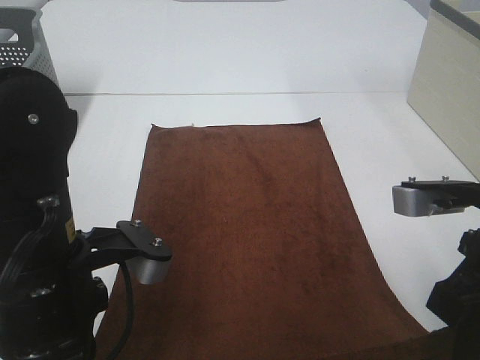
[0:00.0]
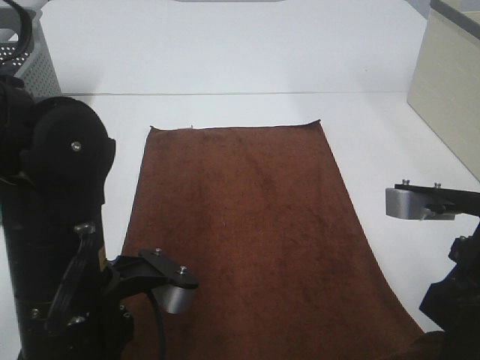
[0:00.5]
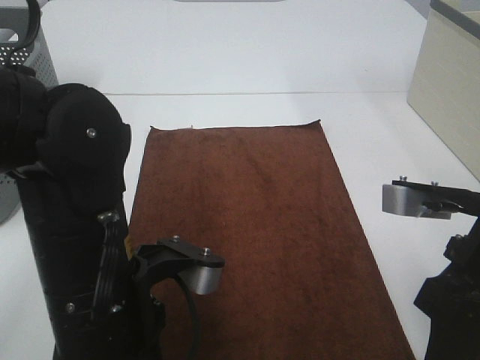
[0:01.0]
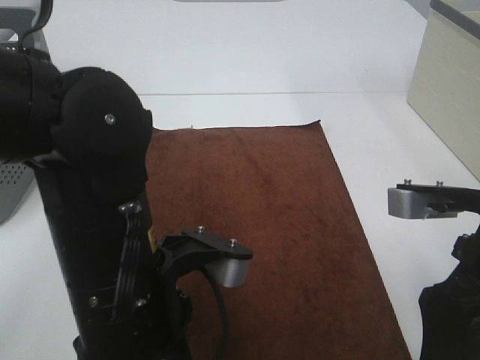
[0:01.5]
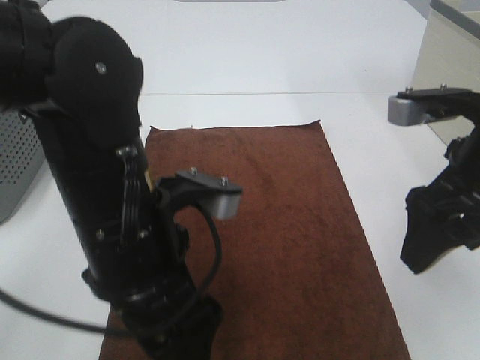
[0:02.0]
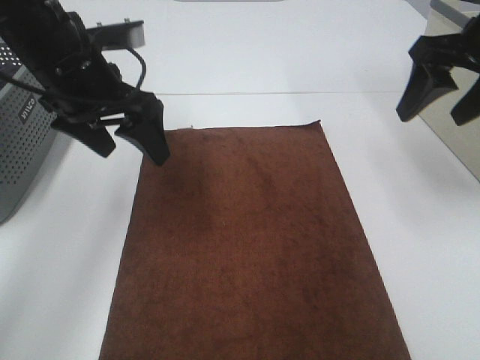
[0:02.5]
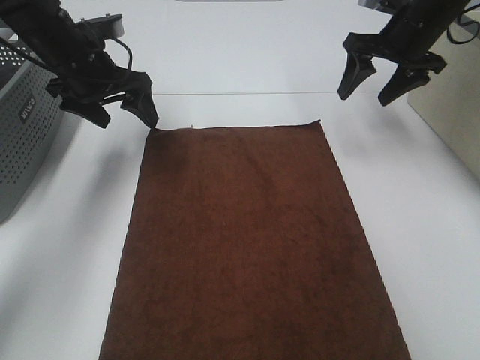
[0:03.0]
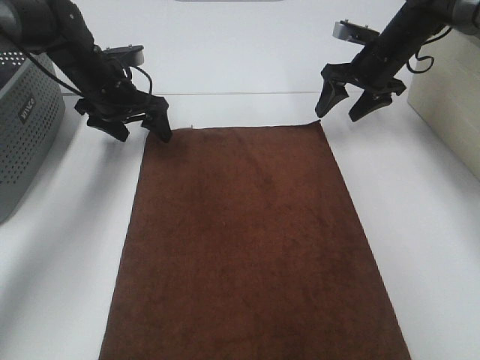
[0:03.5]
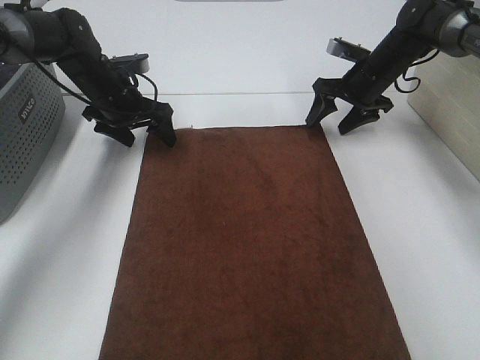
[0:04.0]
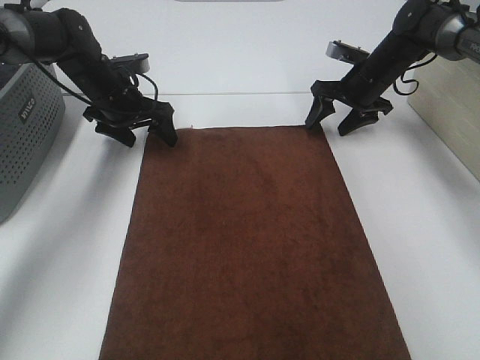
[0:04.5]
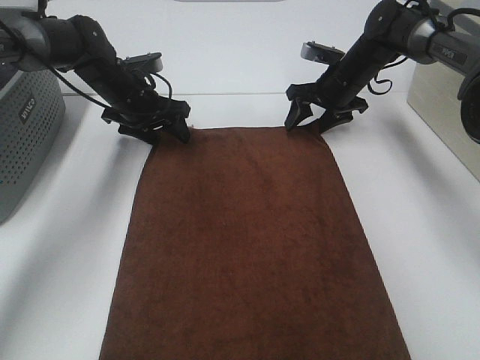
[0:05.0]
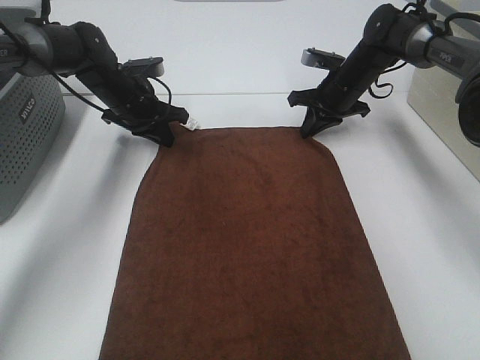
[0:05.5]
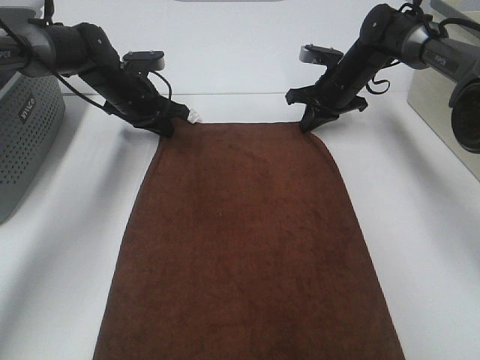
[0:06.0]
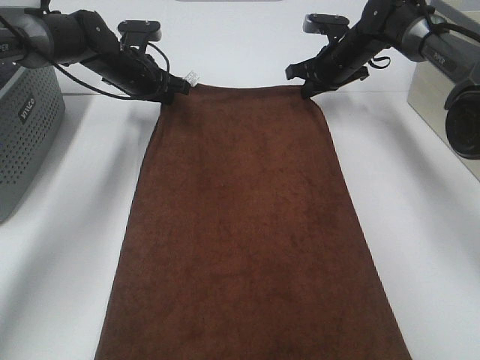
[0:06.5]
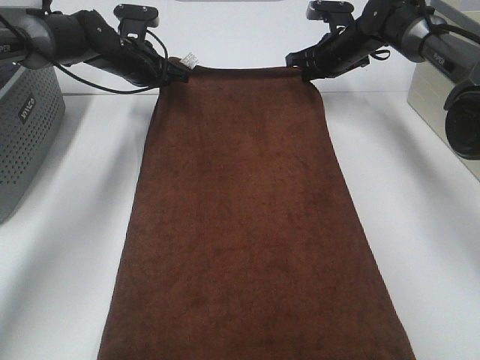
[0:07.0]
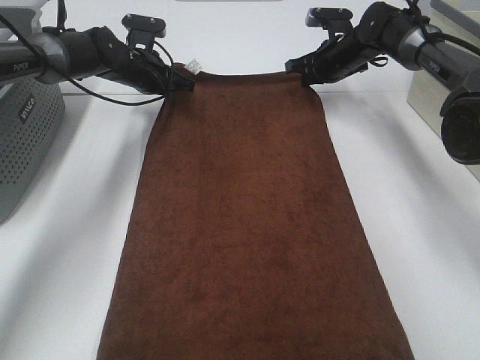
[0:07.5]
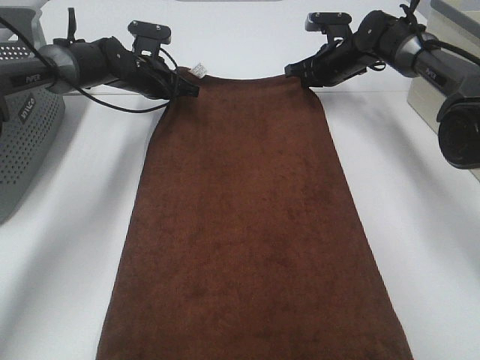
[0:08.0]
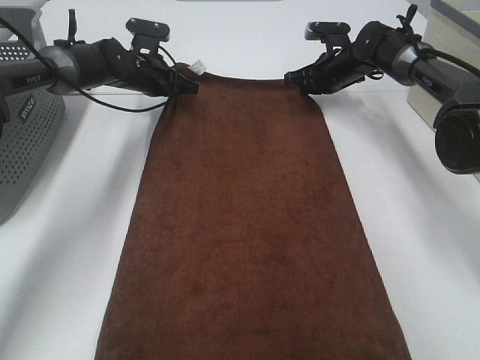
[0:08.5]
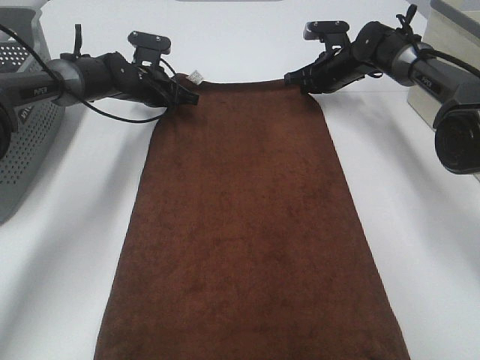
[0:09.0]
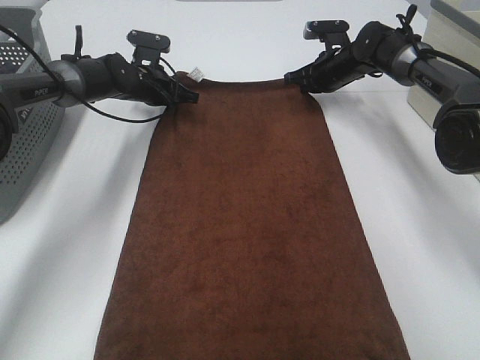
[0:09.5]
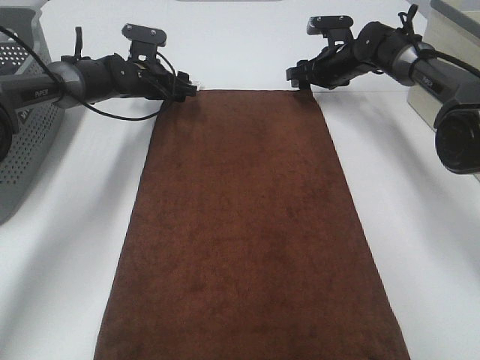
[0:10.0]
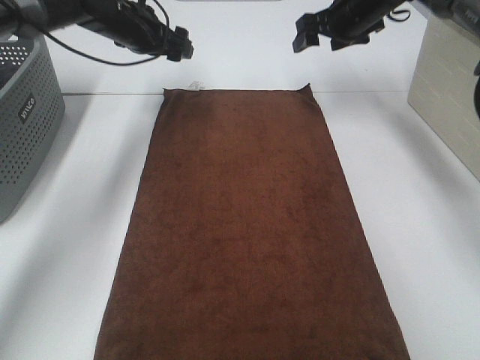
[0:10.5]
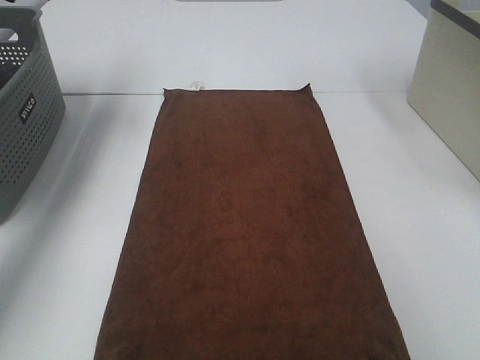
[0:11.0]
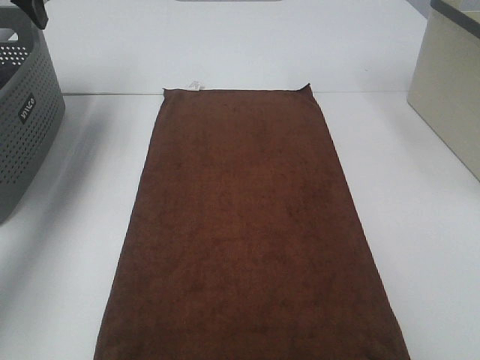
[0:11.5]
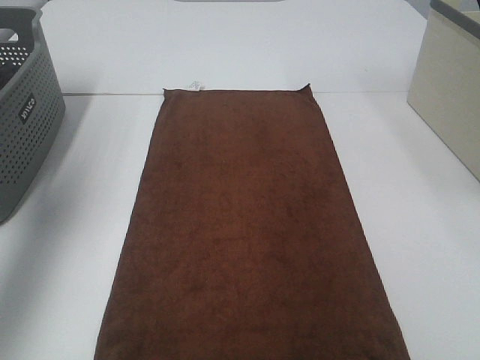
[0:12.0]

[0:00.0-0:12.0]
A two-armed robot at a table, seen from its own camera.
Task of the whole recording: Remove the towel and place it.
Step, 0:00.0 to 0:04.5: Left hand:adjust the brown towel.
Step, 0:00.0 to 0:04.5: Right hand:adjust the brown towel.
0:00.0 to 0:02.0: The left gripper goes about 5 cm to the right, and opens. Meanwhile the right gripper heads forward, covering approximately 5 cm, and opens up.
0:02.0 to 0:04.0: The right gripper is displaced forward and downward by about 35 cm, while the left gripper is displaced forward by some 30 cm.
0:04.0 to 0:06.0: The left gripper closes, while the right gripper closes.
0:08.0 to 0:10.0: The right gripper opens up; the left gripper opens up.
0:10.0 to 0:12.0: The right gripper moves backward and upward, approximately 50 cm, while the left gripper goes about 50 cm backward, upward and to the left.

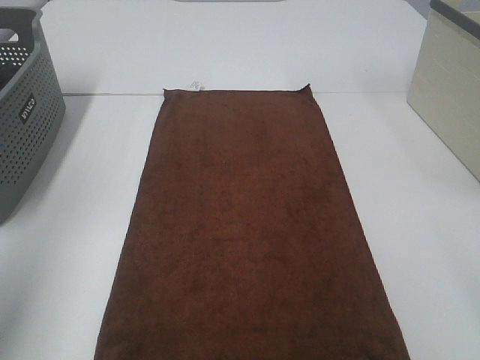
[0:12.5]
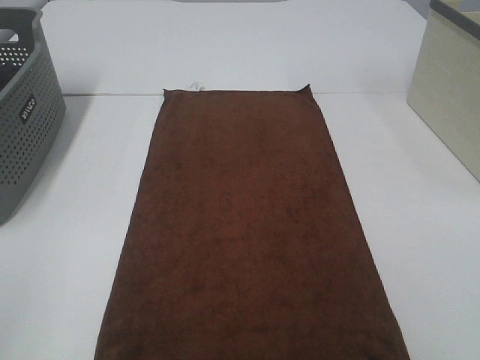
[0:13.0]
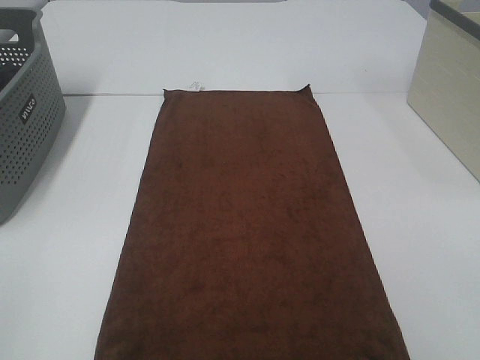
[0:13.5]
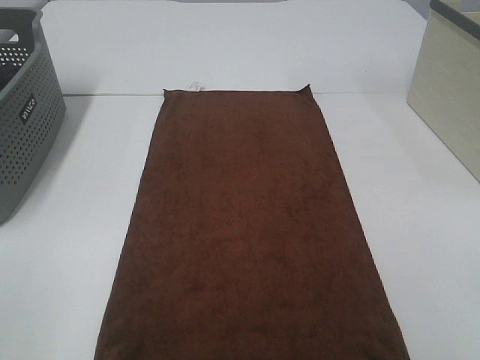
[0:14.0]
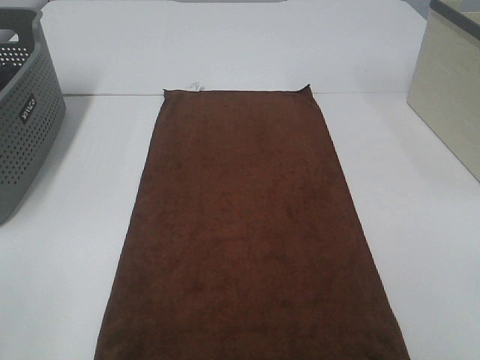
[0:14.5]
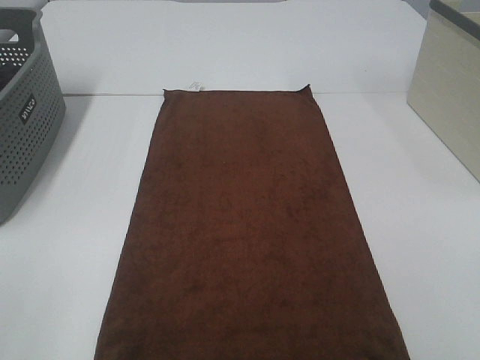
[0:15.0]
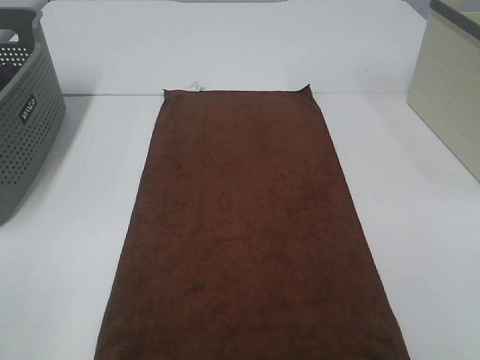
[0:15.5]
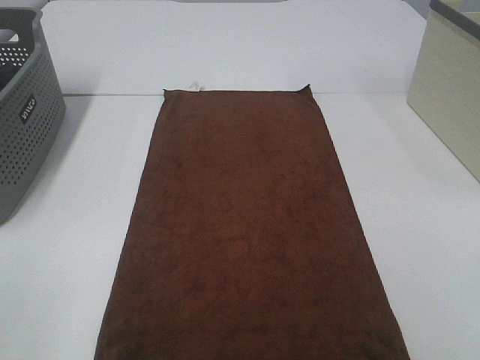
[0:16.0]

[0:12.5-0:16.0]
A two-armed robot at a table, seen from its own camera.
Task of the whole recording: Remove the towel and place it.
0:12.5 to 0:14.5: The left gripper goes some 15 cm backward and downward.
0:14.5 to 0:16.0: Both grippers stay about where they are.

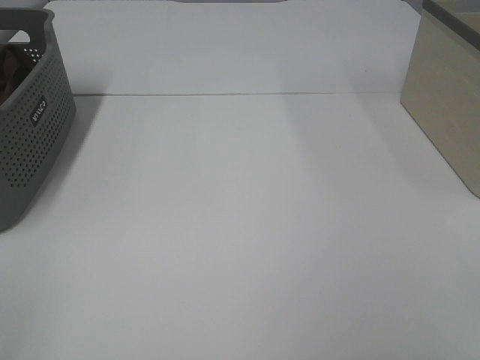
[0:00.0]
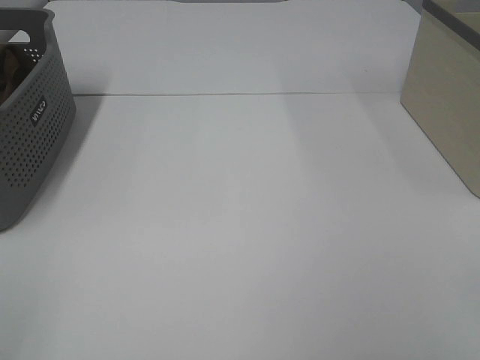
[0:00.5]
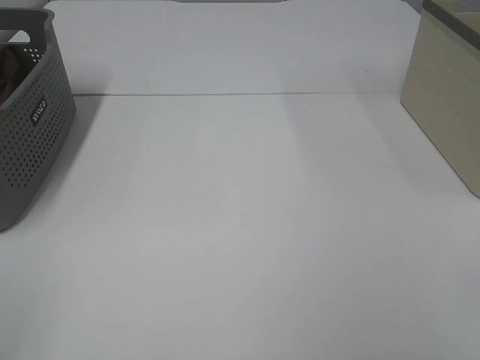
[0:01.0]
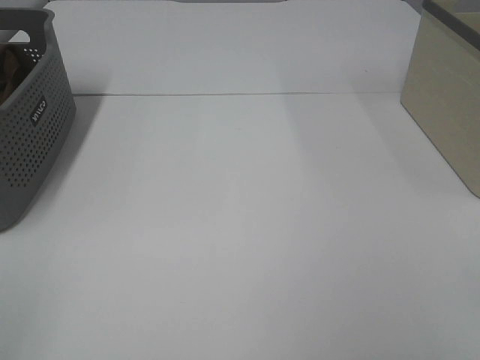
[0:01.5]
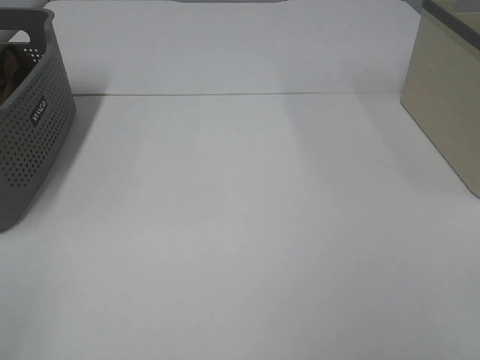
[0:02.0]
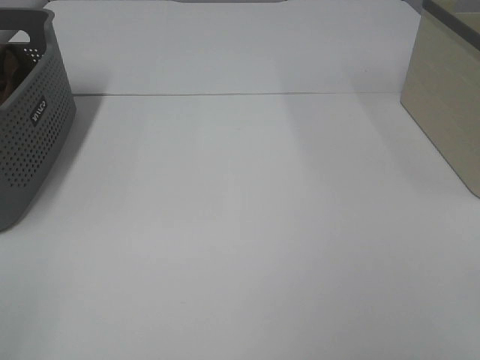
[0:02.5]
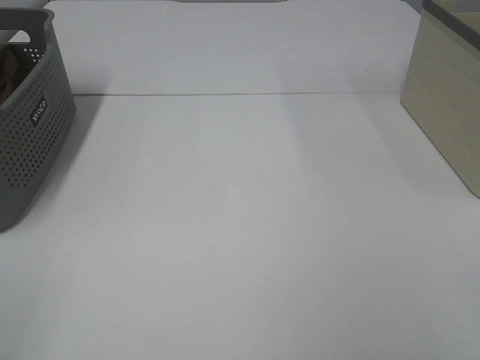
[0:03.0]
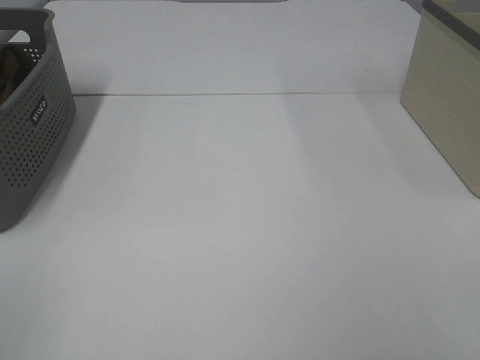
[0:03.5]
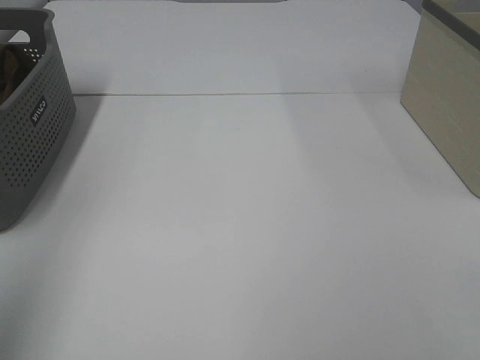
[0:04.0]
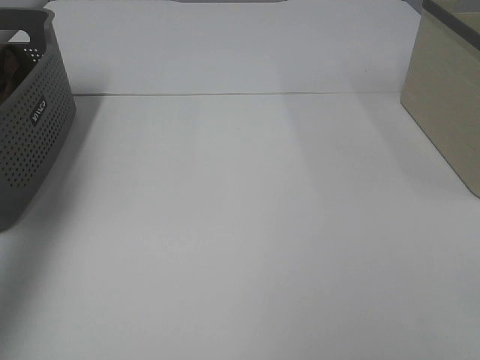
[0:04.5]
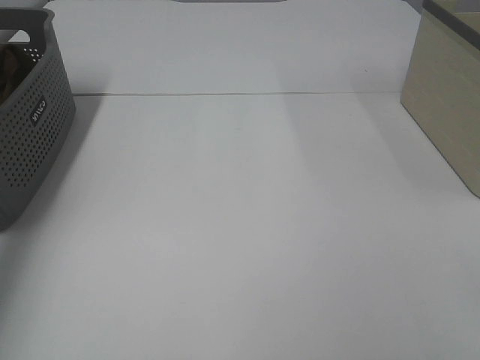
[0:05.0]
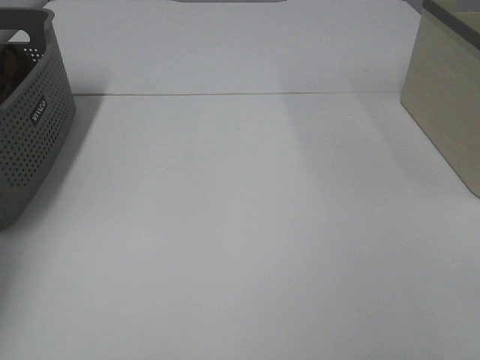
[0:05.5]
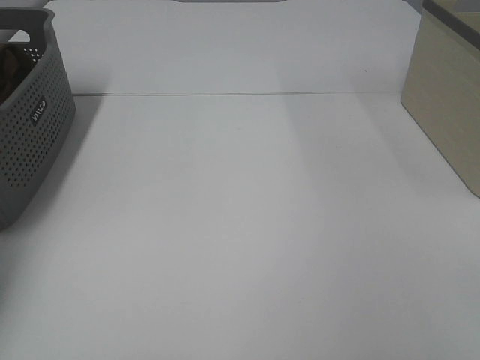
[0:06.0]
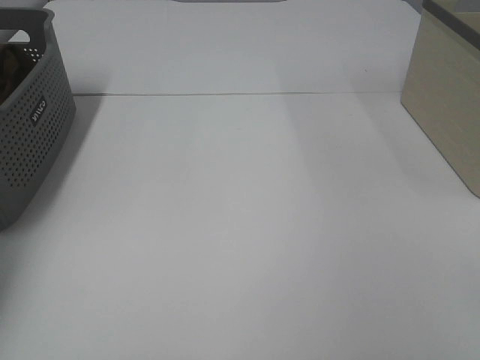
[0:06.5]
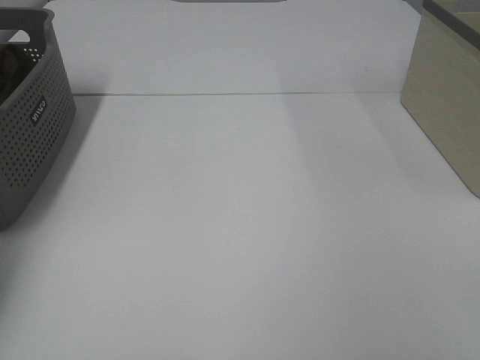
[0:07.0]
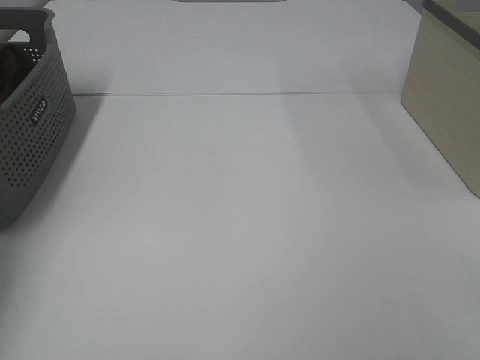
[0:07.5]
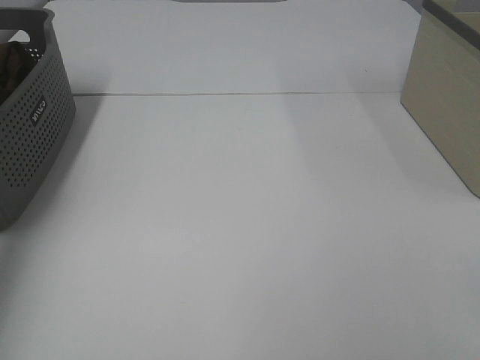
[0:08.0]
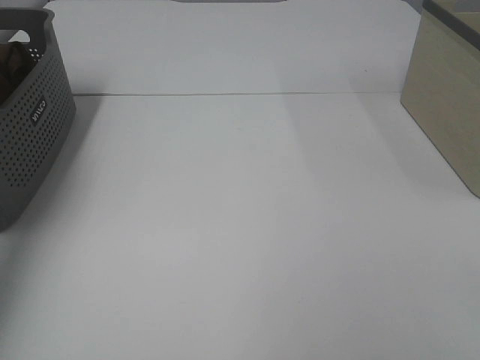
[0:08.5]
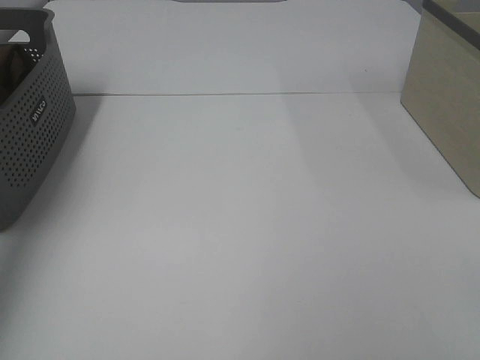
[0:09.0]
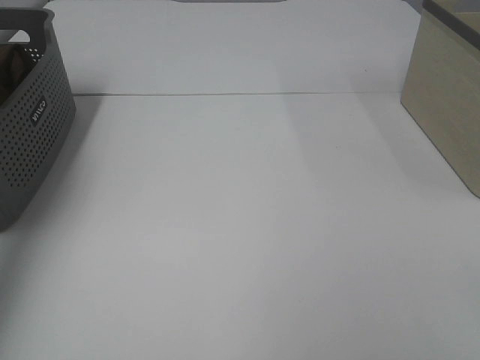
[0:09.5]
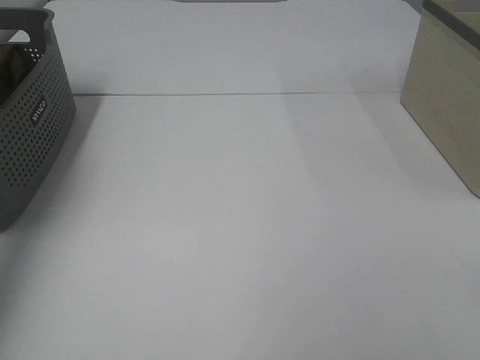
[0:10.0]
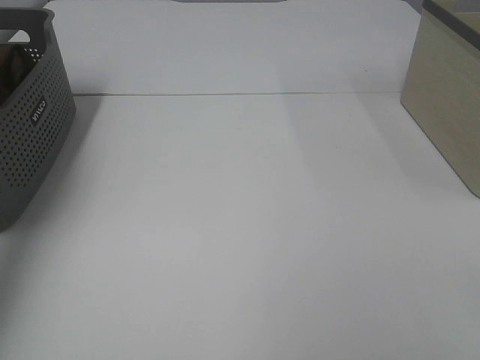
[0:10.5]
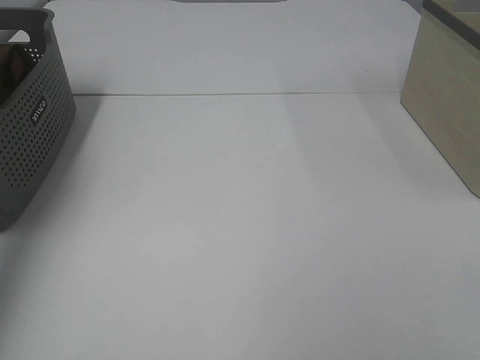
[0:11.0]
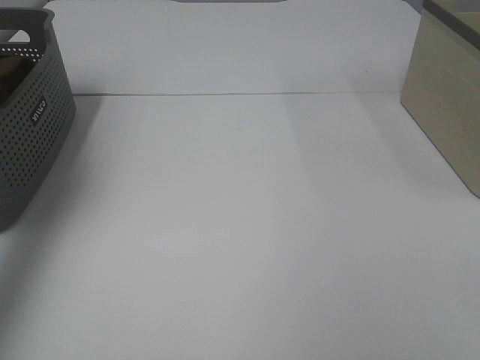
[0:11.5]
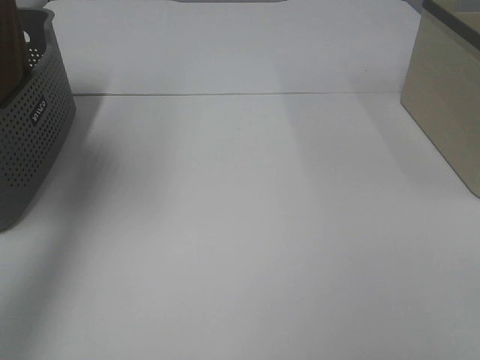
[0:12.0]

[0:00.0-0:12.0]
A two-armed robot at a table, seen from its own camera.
Task of the whole recording: Remove the towel and place it.
0:00.0 to 0:02.0: Both grippers stay about where they are.
0:02.0 to 0:04.0: The left gripper moves upward and forward, roughly 15 cm.
0:04.0 to 0:06.0: The left gripper travels forward and downward by about 40 cm.
0:10.0 to 0:12.0: The left gripper moves to the right and upward, about 10 cm.
